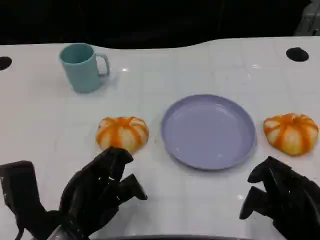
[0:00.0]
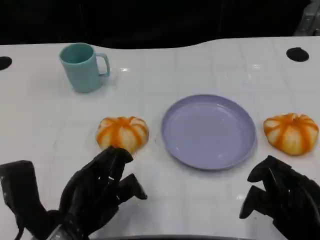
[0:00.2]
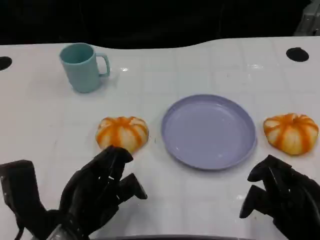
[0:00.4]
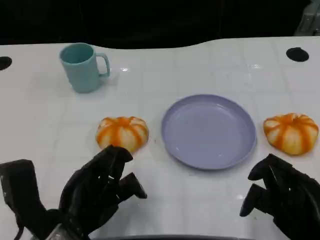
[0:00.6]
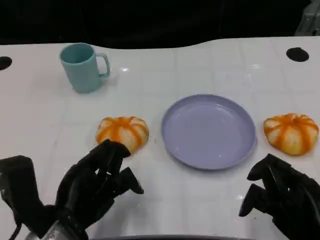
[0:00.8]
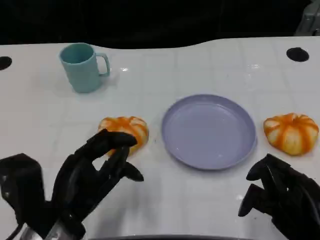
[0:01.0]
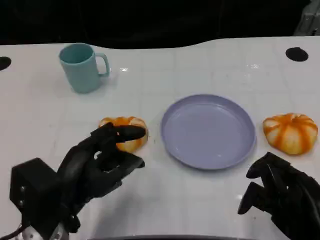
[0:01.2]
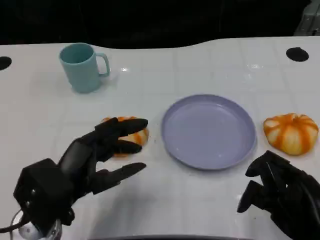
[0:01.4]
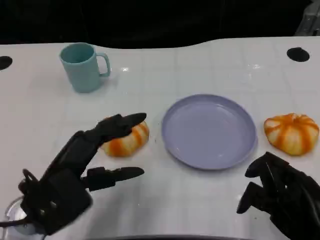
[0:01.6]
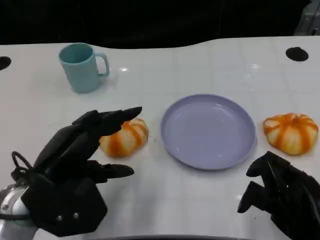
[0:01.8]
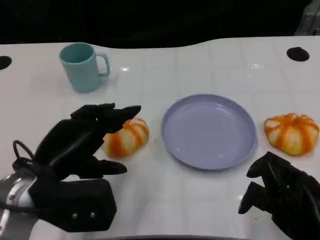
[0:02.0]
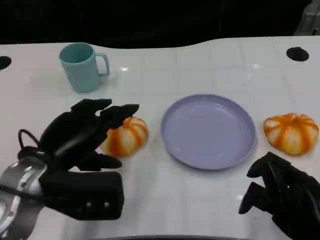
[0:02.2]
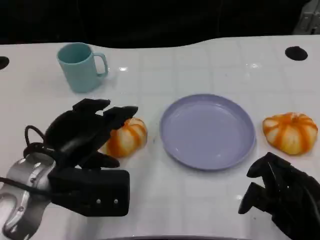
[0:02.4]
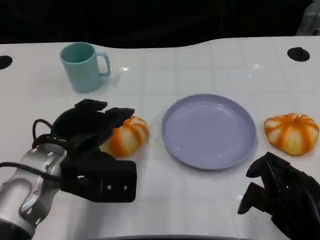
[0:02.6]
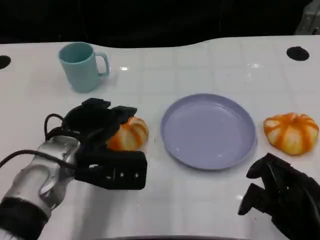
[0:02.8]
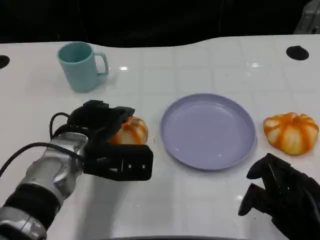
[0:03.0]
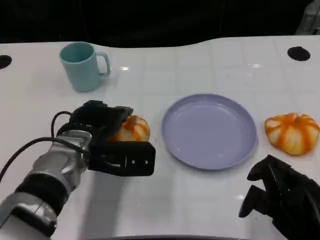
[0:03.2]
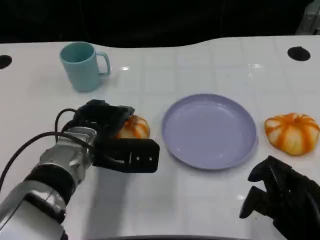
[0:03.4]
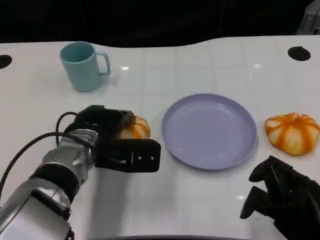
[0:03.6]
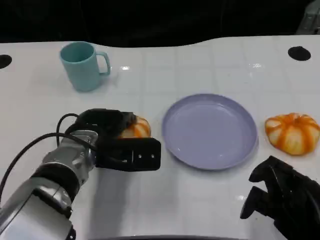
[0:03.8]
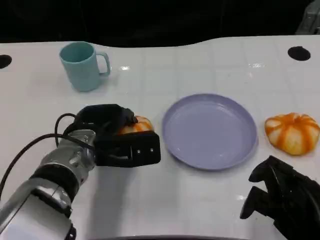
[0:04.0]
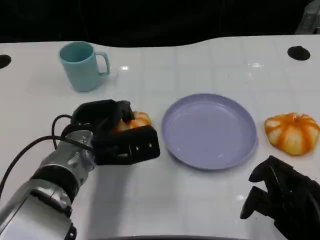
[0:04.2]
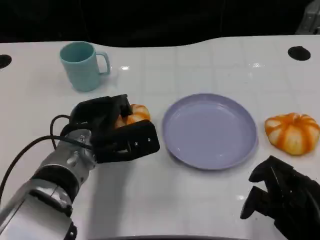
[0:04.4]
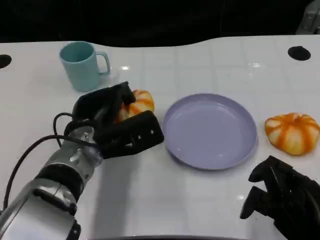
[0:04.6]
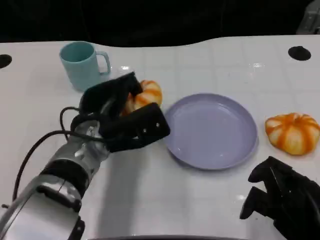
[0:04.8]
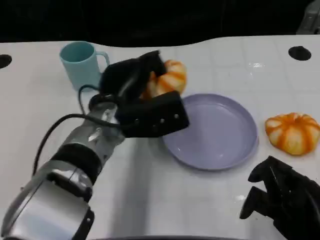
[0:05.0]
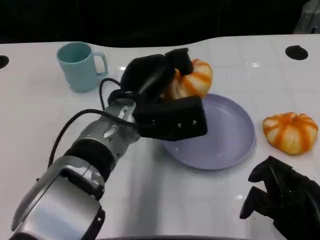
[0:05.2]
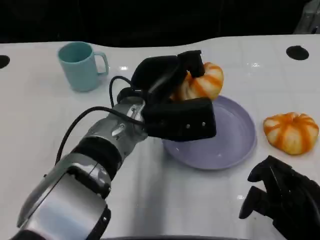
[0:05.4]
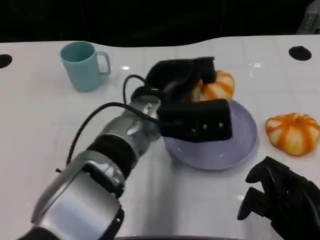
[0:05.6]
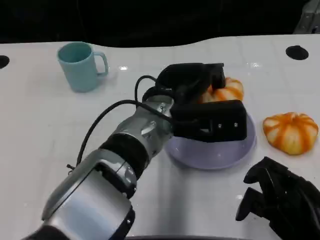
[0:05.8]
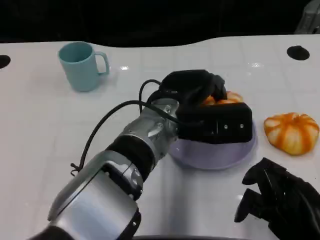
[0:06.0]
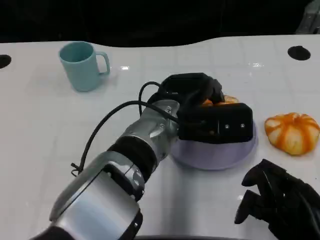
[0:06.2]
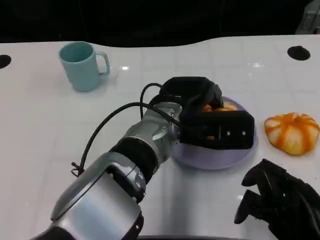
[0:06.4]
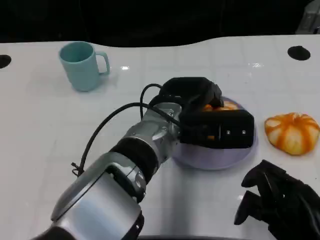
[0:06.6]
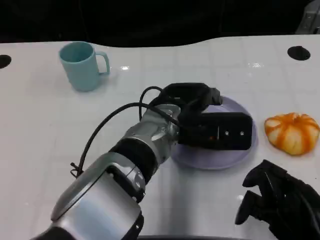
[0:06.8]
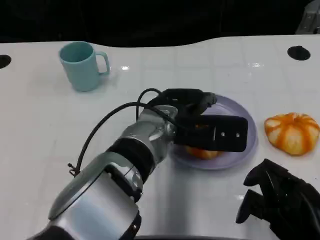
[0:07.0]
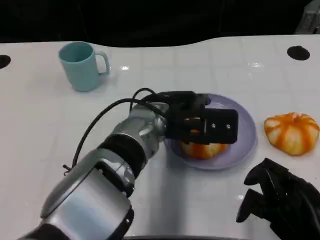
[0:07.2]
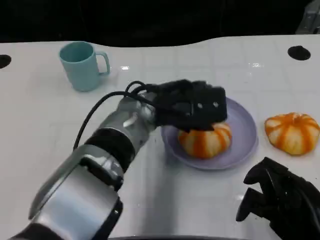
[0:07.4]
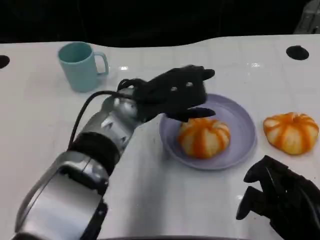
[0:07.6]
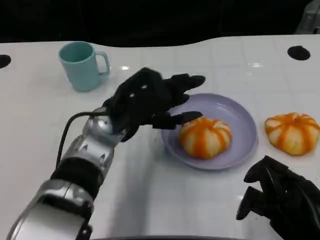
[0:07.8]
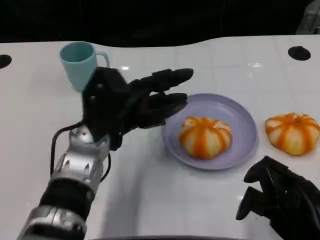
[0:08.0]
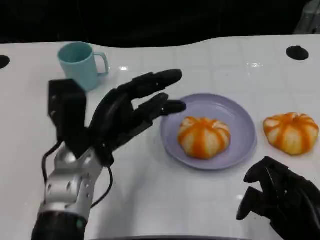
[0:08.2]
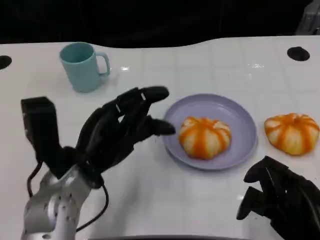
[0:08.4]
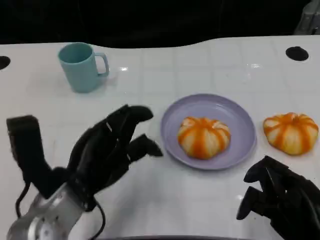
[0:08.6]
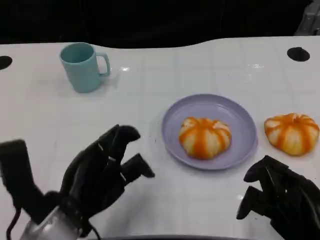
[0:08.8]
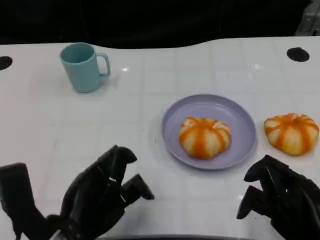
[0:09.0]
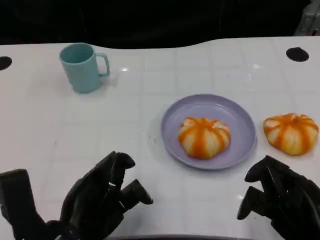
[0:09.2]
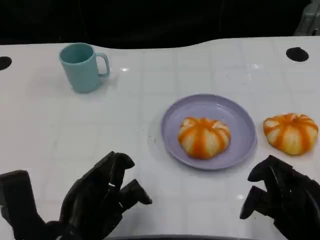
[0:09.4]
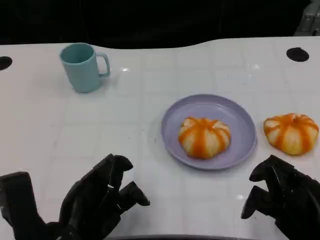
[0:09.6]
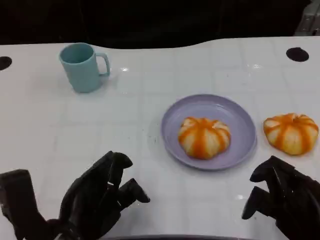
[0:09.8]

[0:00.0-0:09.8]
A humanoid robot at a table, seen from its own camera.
Task of the whole recording: Grasp the bread from the table and place it into the plate.
0:01.4 to 0:02.8: The left hand travels forward by about 10 cm.
0:02.8 to 0:04.2: There are only small adjustments of the hands.
0:04.2 to 0:05.6: The left hand goes approximately 10 cm to the right and upward.
0:07.0 to 0:08.4: The left hand is displaced to the left and backward by about 15 cm.
0:08.4 to 0:09.8: The left hand moves backward, about 10 cm.

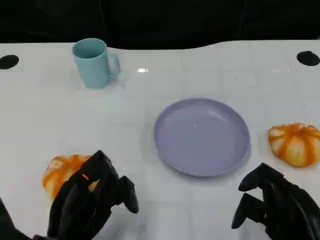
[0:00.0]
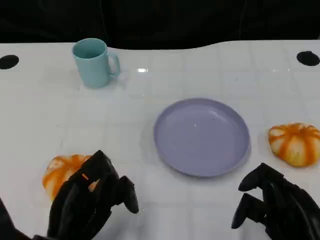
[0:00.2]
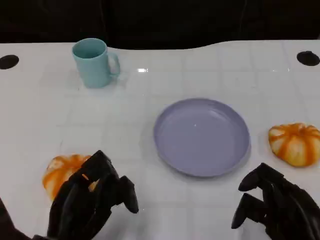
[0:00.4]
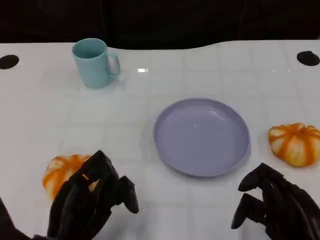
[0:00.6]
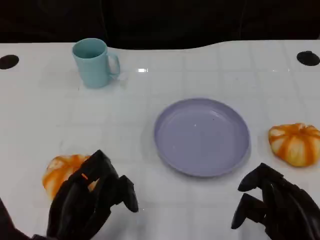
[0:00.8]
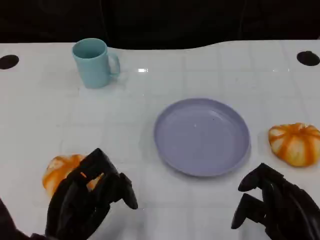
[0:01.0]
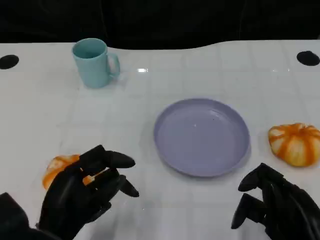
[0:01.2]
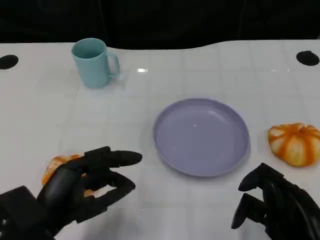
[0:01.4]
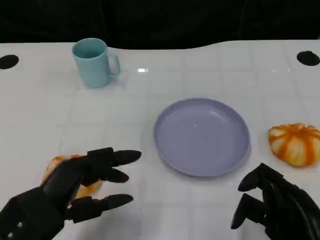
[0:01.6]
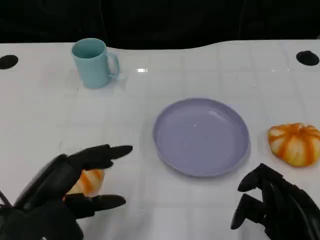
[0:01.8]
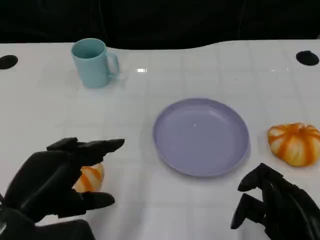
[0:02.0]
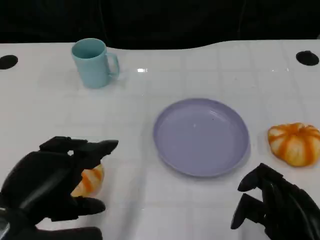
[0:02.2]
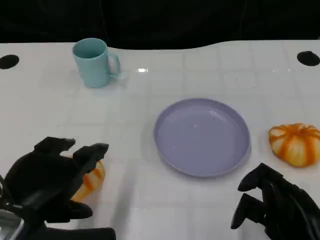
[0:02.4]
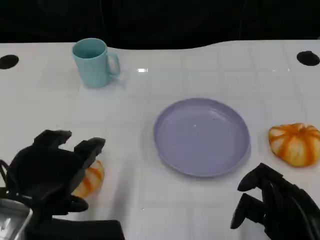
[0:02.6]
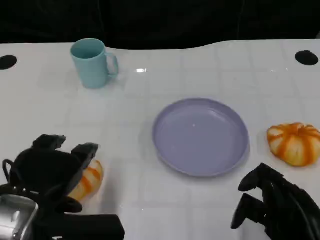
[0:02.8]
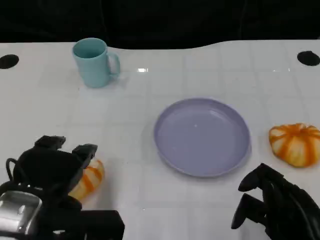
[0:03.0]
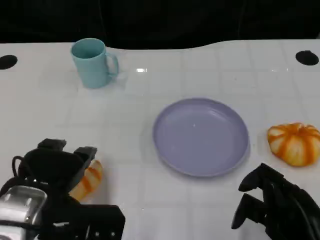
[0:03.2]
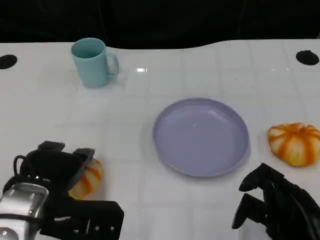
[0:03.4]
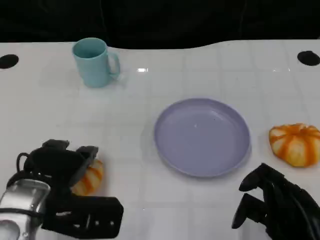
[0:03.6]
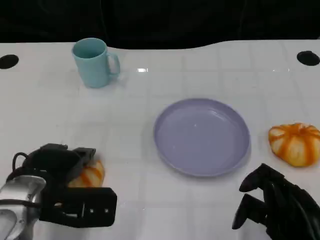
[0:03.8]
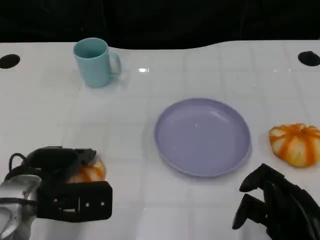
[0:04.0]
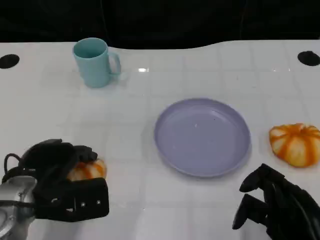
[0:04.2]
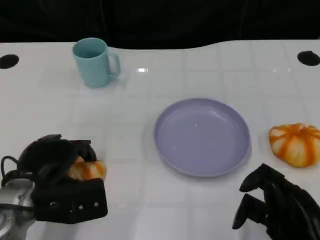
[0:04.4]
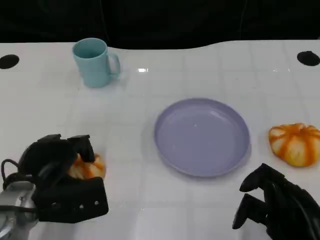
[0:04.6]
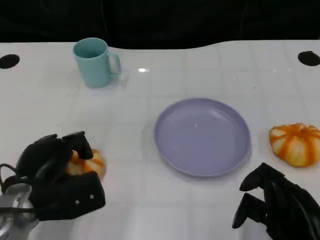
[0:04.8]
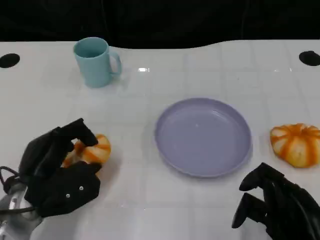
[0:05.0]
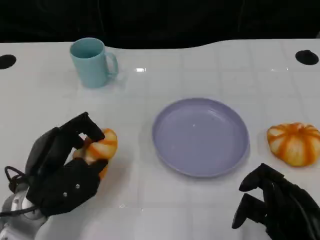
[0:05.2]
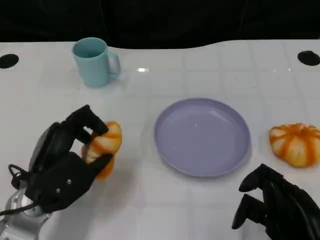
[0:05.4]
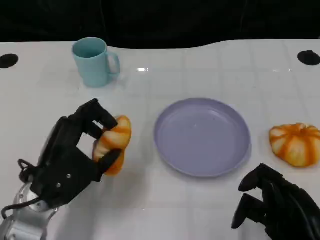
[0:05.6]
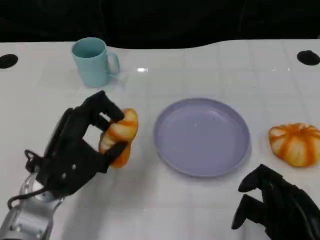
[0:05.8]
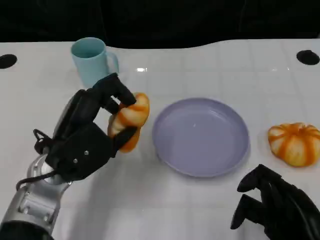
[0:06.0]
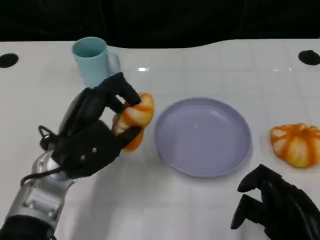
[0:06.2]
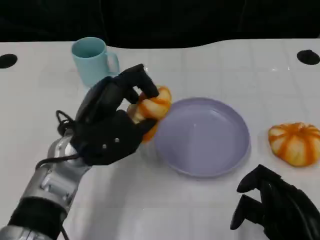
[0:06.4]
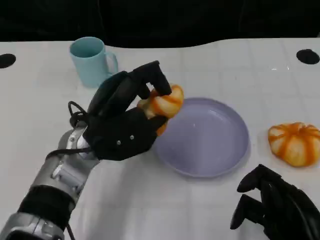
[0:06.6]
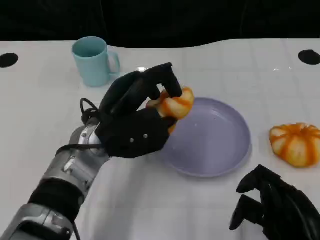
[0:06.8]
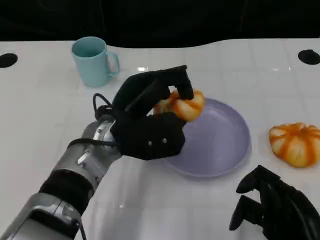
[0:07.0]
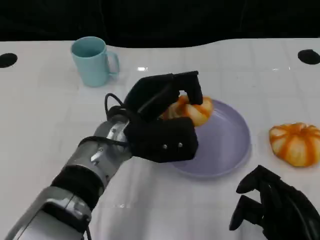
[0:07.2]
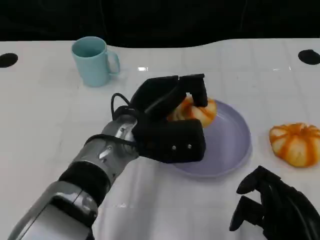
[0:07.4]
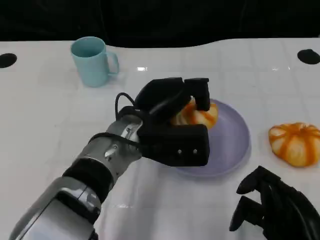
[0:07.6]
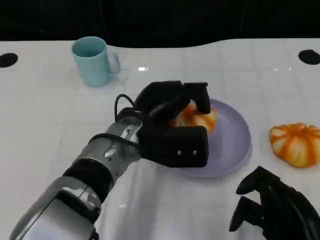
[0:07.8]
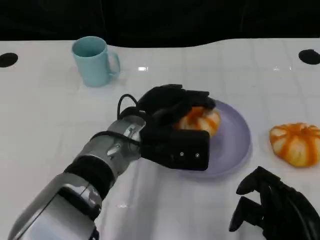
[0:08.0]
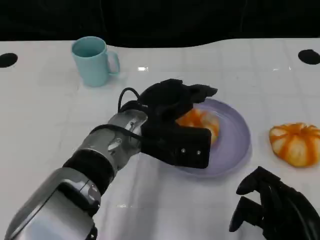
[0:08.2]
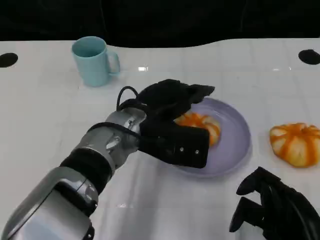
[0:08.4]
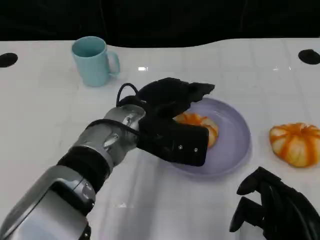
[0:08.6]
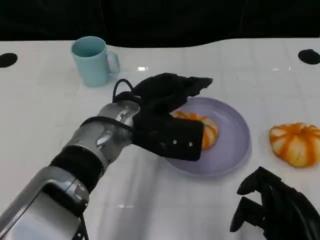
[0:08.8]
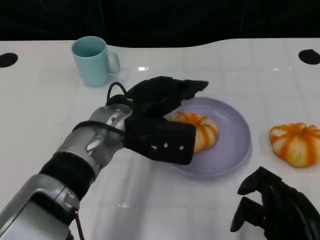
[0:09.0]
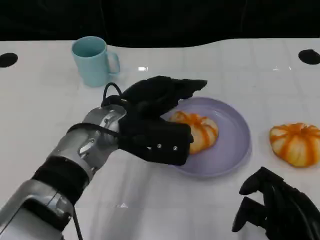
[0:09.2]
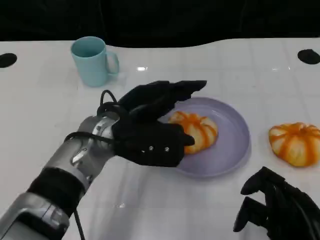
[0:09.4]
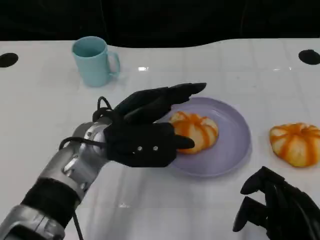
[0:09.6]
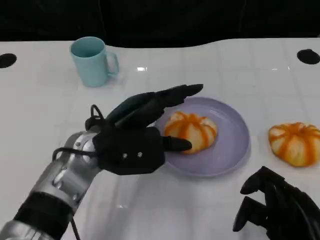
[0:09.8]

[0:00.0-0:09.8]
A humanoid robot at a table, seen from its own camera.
Task of the whole recording: Grasp the bread from the table and place it into the plate.
0:00.0 to 0:01.4: The left hand ends up some 5 cm from where it was.
0:02.8 to 0:04.2: The left hand is displaced downward and forward by approximately 10 cm.
0:05.6 to 0:07.0: The left hand goes approximately 10 cm to the right and forward.
0:08.4 to 0:09.8: The left hand is displaced to the left by approximately 5 cm.

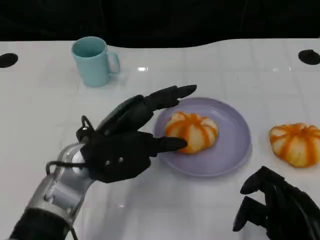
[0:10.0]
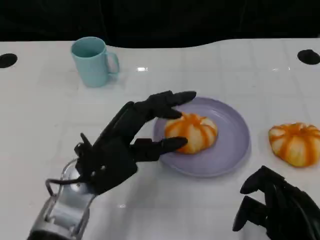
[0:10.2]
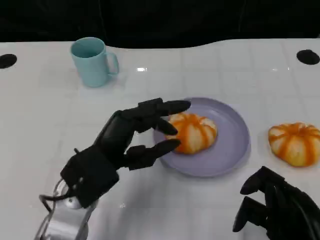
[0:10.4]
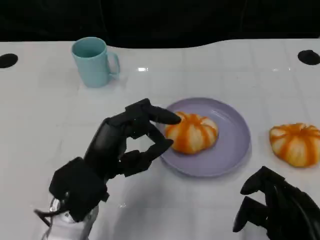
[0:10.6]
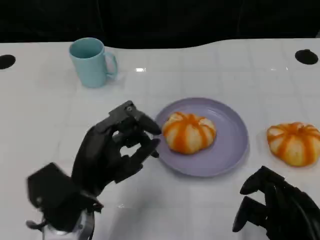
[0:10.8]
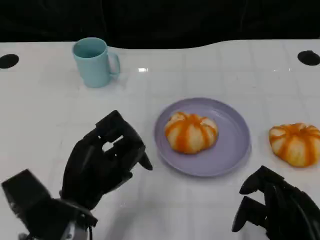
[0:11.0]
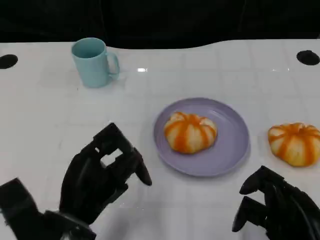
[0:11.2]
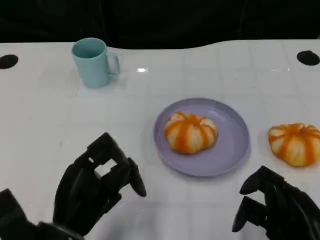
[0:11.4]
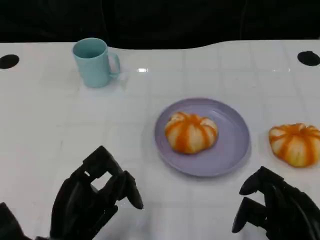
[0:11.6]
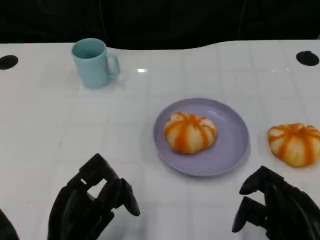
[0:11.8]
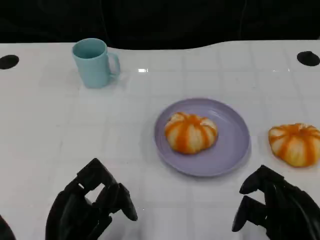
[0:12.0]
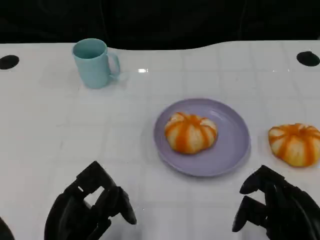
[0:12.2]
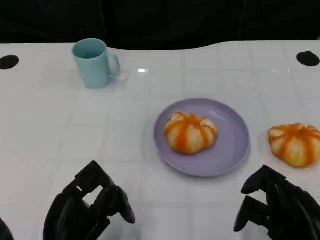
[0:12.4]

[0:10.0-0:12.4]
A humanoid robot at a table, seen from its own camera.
Task of the whole recording: Grasp the bread from the table and place it into the plate.
0:10.0 to 0:11.2: The left hand travels backward and downward by roughly 10 cm.
0:11.2 to 0:12.4: There are only small adjustments of the hands.
